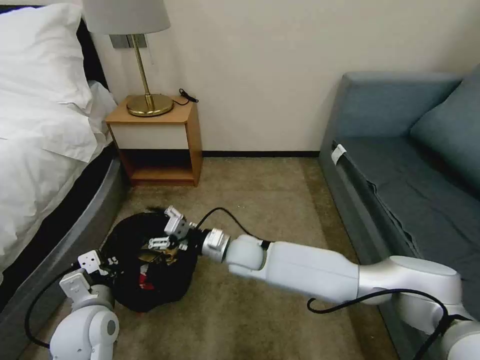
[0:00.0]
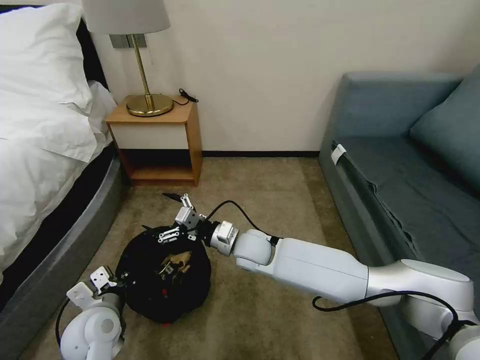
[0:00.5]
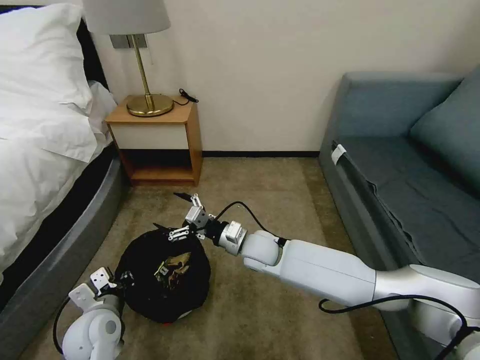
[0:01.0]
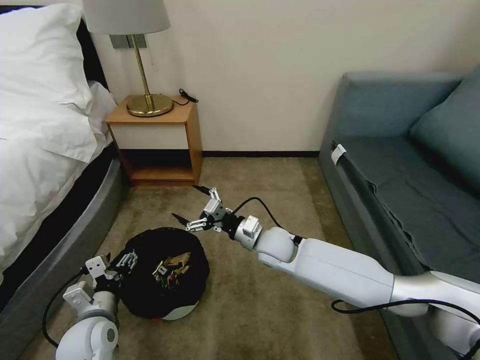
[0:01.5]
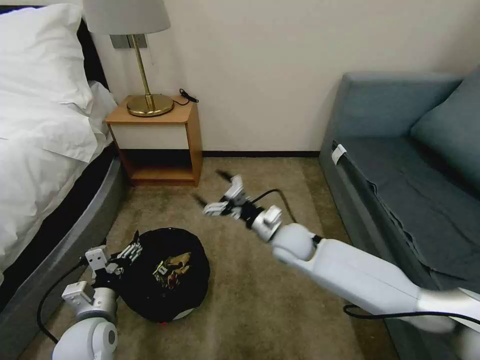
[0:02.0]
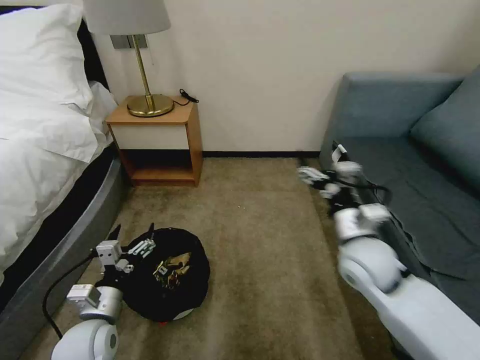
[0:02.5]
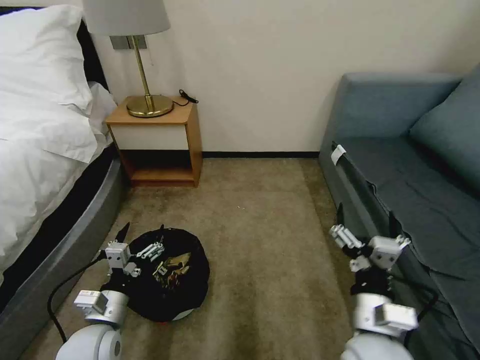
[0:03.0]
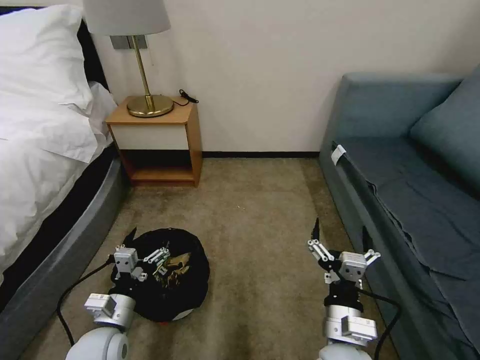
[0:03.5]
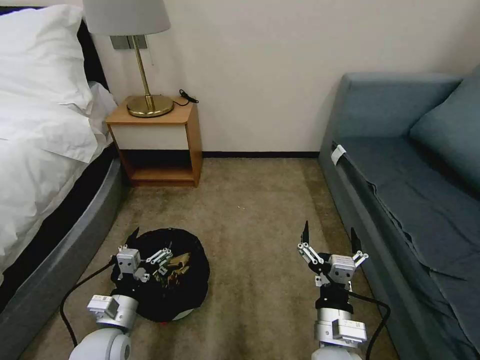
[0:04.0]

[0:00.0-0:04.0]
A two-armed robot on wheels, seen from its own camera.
Task of the whole recording: Pick up the trash bin, then pick up the garbage on the floor and place it into the trash bin.
0.0 to 2.0 s: The left gripper ends up some 5 cm from where it was, and opens its fingers. Meanwhile the right gripper heads to the right, covering roughly 10 cm.
2.0 to 4.0 s: The right gripper moves backward, some 25 cm.

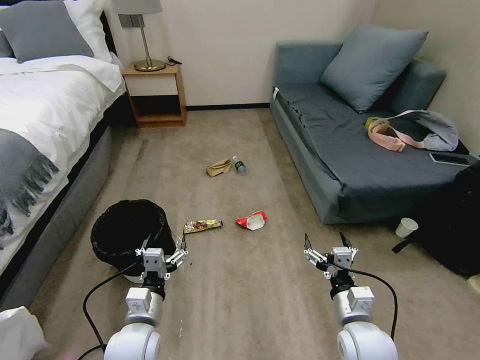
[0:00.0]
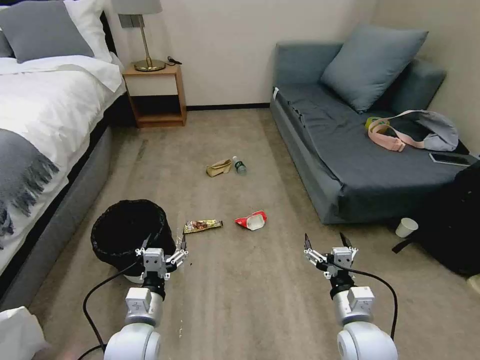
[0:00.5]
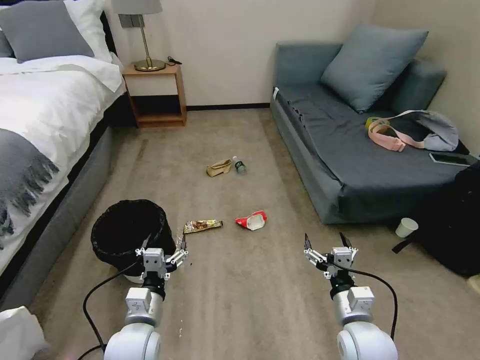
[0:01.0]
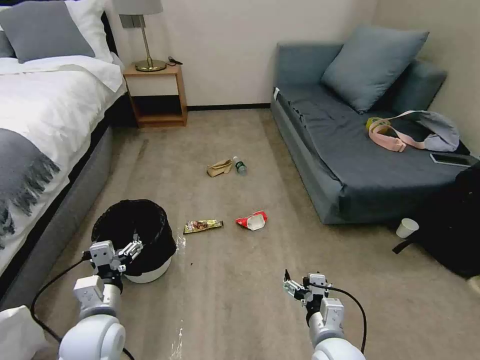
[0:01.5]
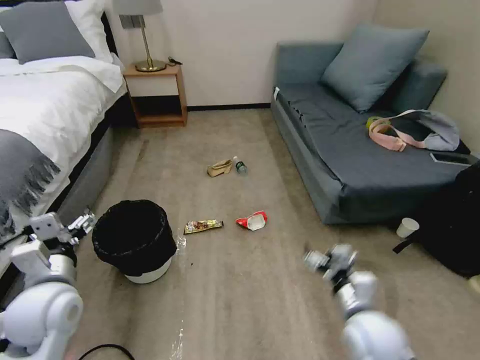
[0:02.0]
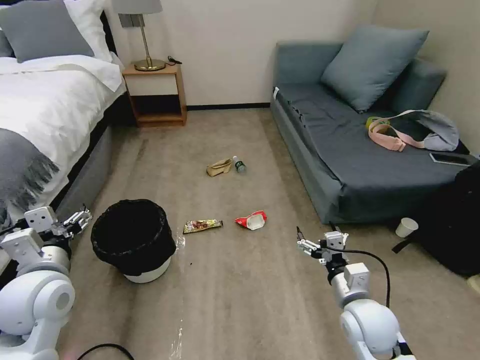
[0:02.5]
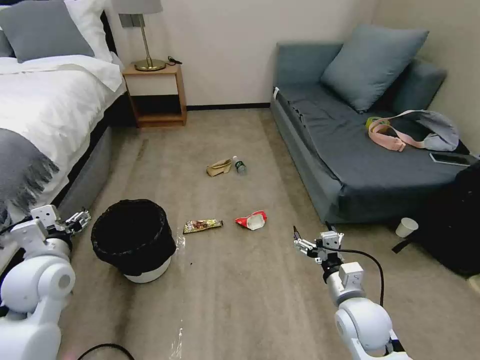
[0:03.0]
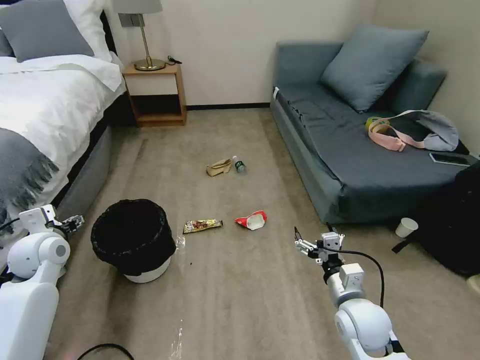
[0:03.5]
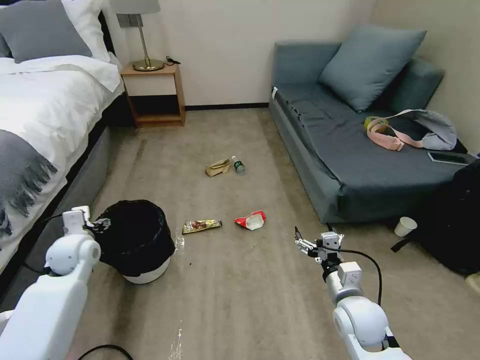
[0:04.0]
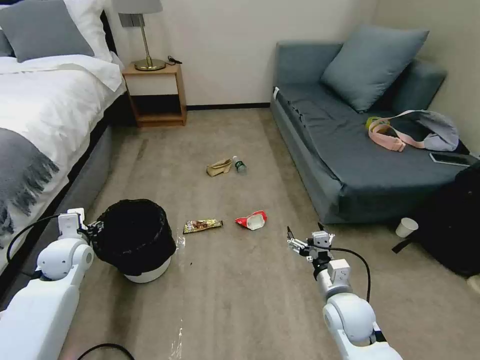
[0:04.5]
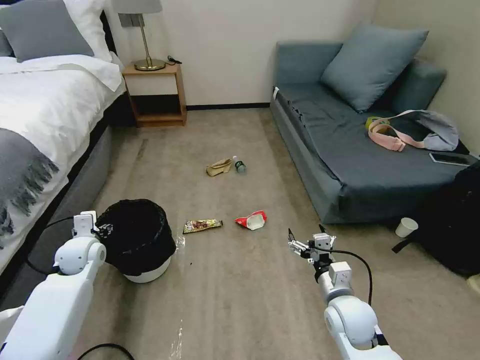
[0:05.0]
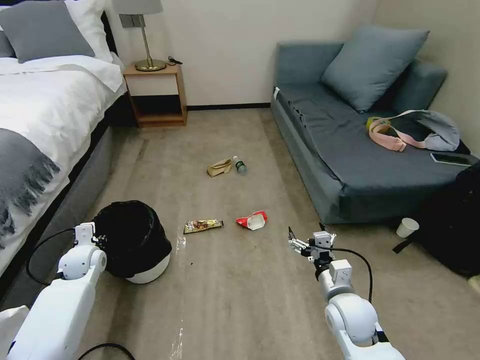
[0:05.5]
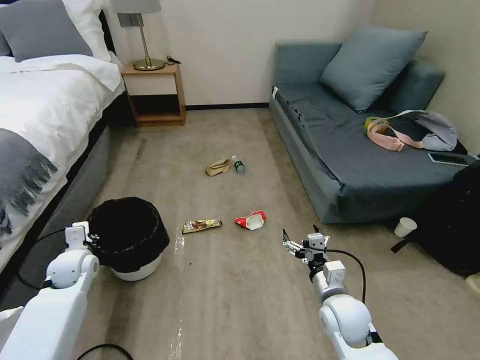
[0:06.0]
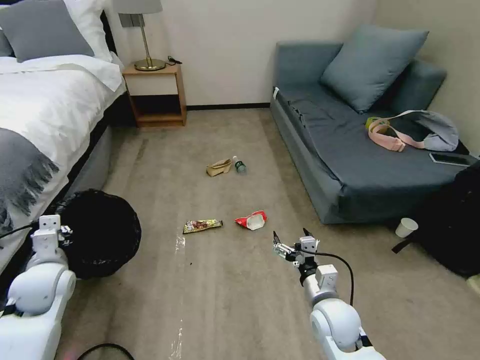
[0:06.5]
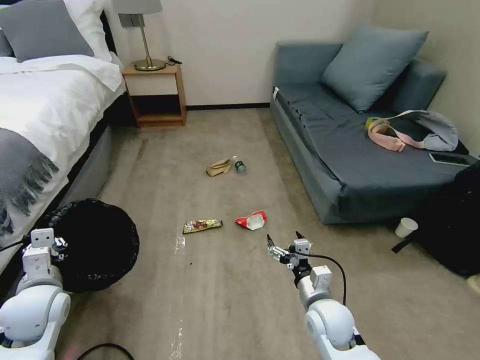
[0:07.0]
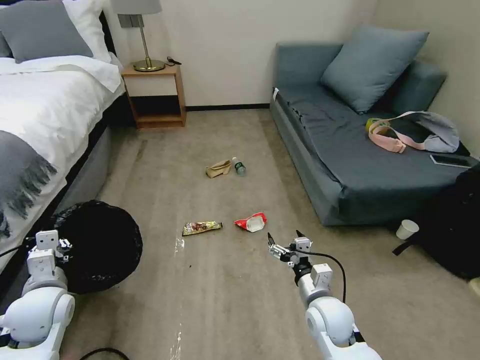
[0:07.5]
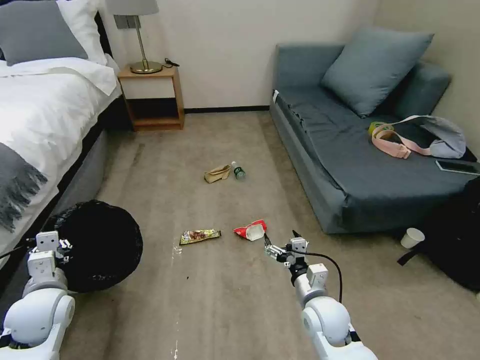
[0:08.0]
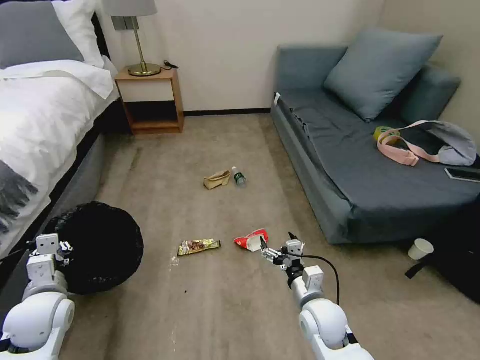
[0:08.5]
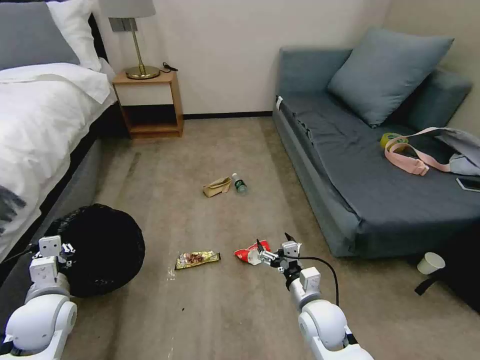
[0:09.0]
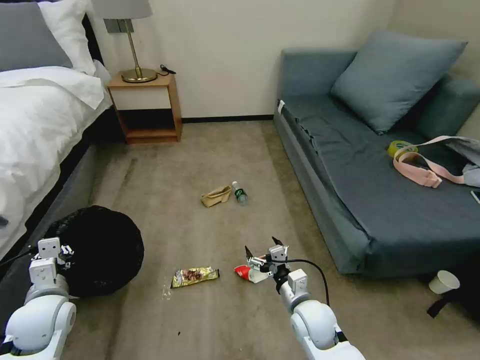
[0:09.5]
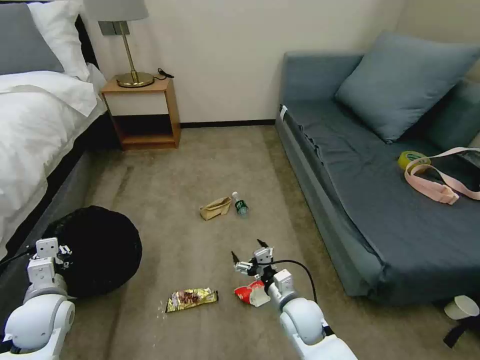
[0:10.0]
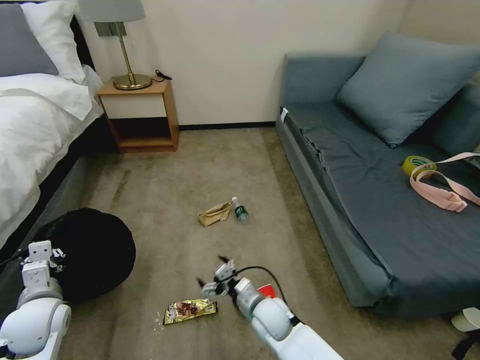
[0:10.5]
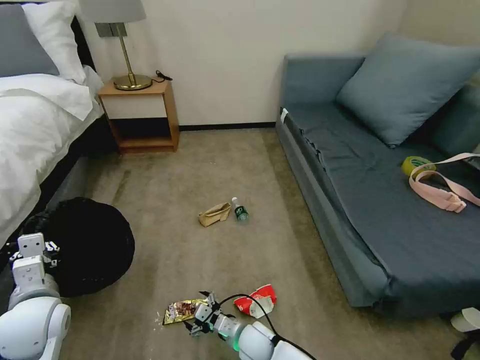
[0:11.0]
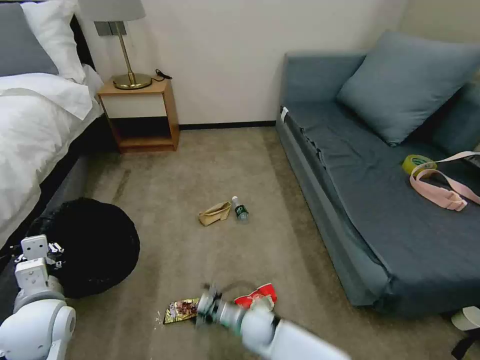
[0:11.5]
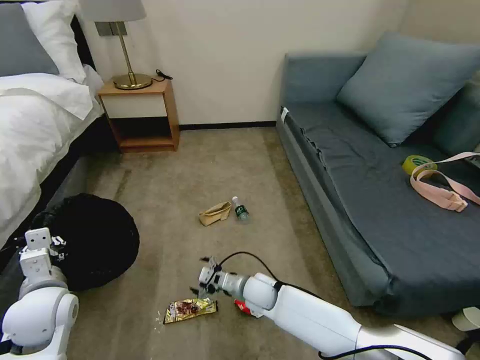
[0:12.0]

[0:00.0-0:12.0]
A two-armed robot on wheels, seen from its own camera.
Task of the whole recording: Pick up the trash bin, then pick up the garbage on the floor and place it into the trash bin.
2.0 to 4.0 s: The left gripper is displaced forward, to the left and downward by roughly 15 cm, while the right gripper heads forward, covering about 5 cm.
4.0 to 6.0 s: The left gripper is displaced downward by approximately 5 cm, and closes.
6.0 to 8.0 s: The left gripper travels backward by roughly 10 cm.
8.0 to 10.0 s: The right gripper ends up about 5 cm from where it was.
10.0 to 12.0 s: The left gripper ends up approximately 5 cm from where it was; the right gripper is displaced to the left and forward by some 10 cm.

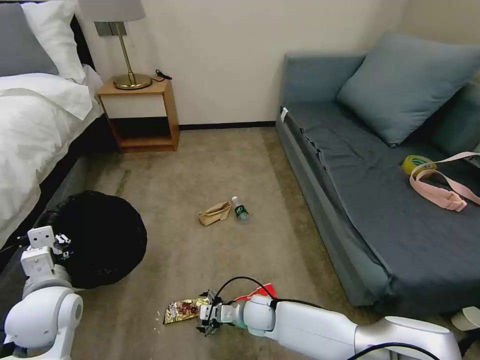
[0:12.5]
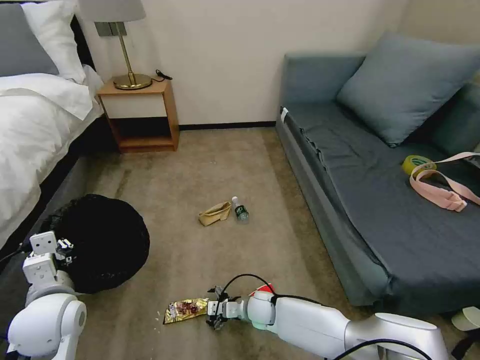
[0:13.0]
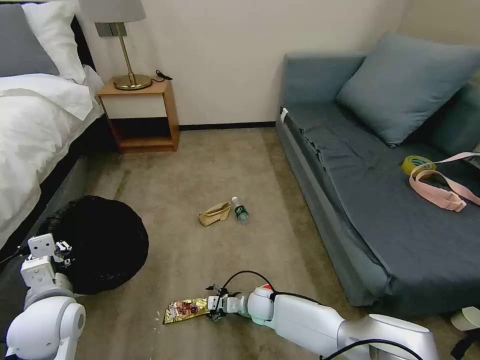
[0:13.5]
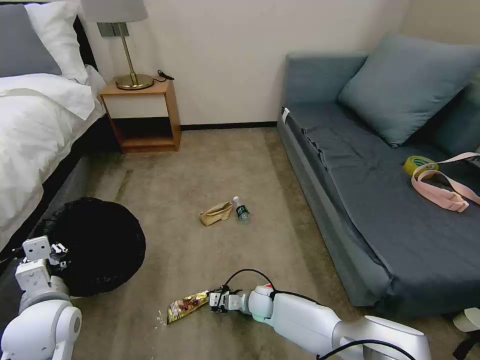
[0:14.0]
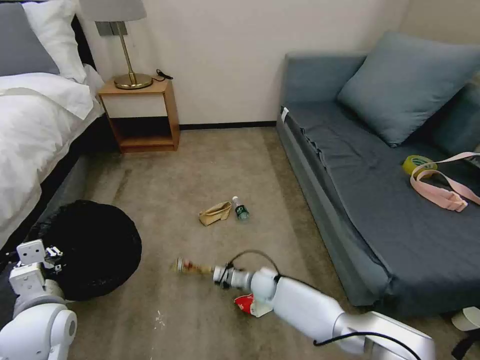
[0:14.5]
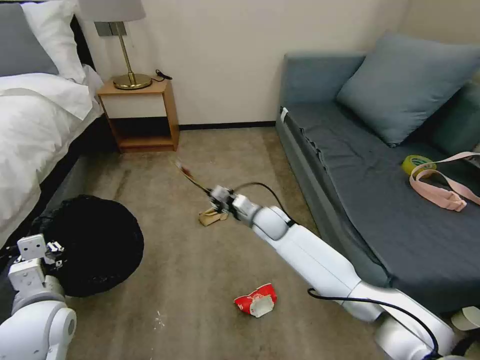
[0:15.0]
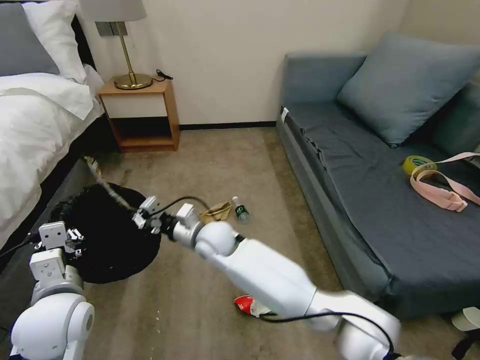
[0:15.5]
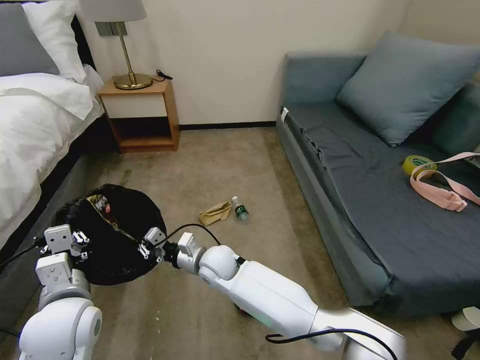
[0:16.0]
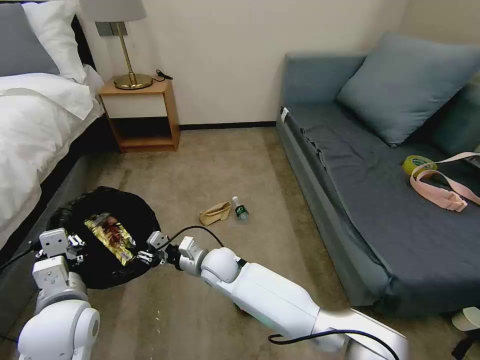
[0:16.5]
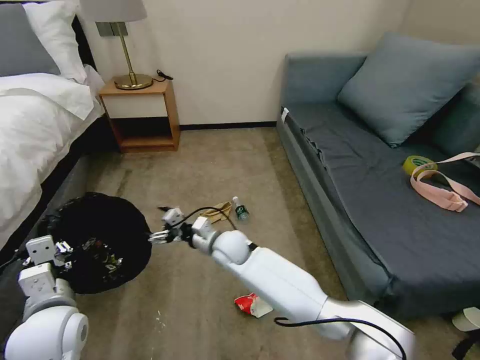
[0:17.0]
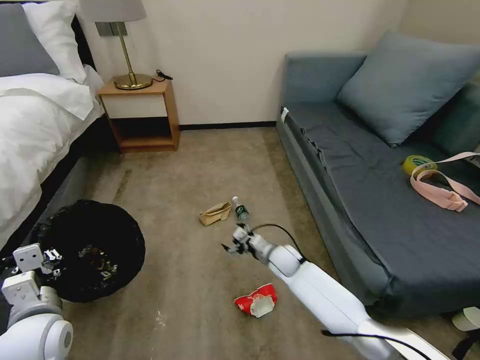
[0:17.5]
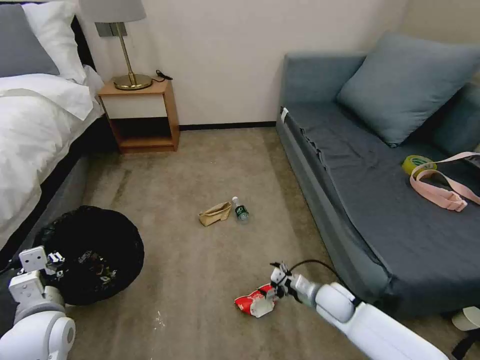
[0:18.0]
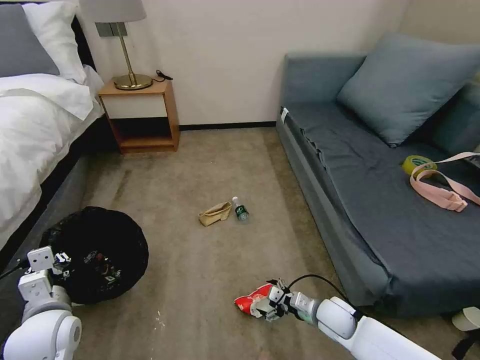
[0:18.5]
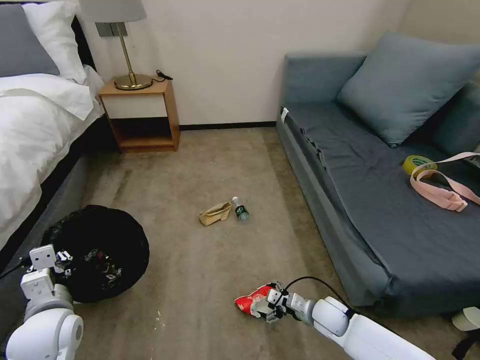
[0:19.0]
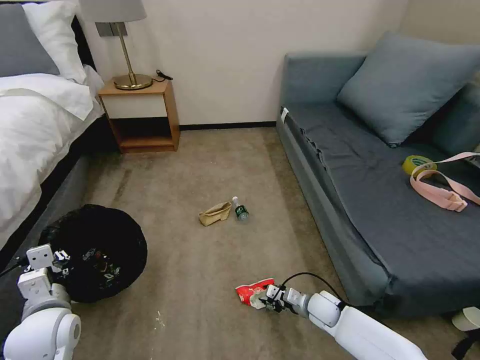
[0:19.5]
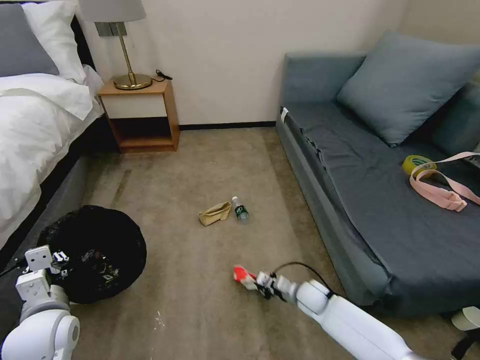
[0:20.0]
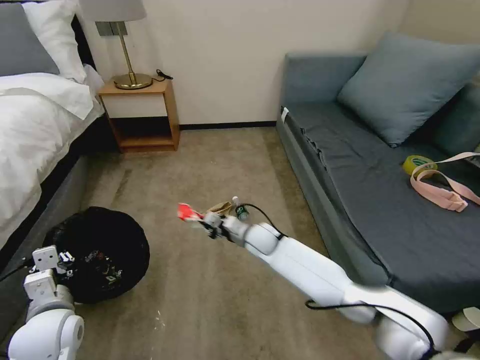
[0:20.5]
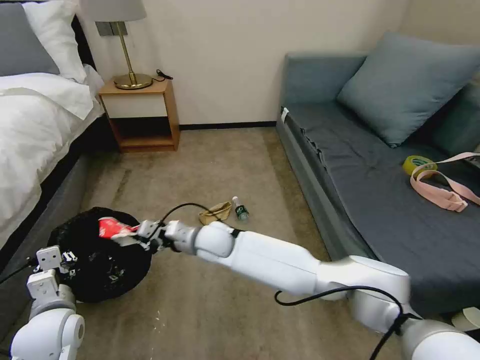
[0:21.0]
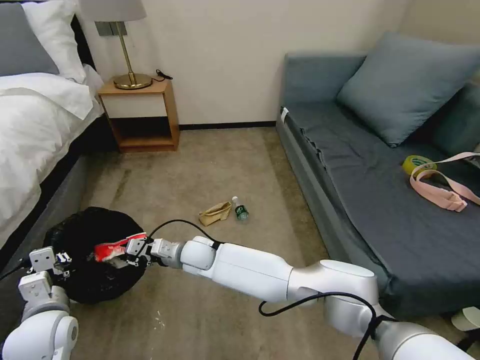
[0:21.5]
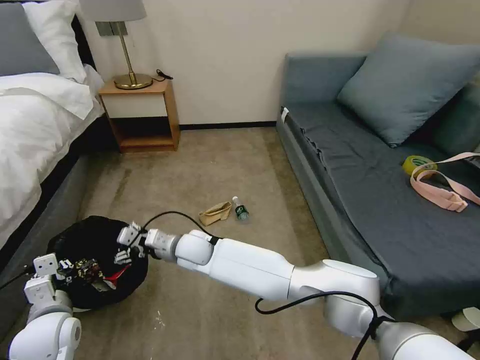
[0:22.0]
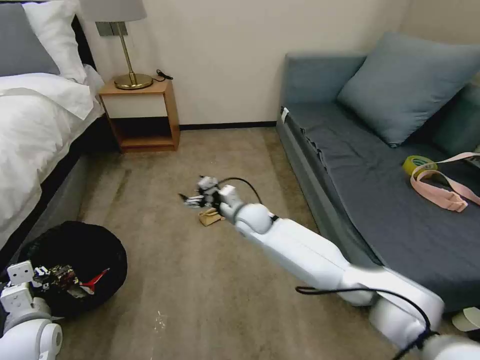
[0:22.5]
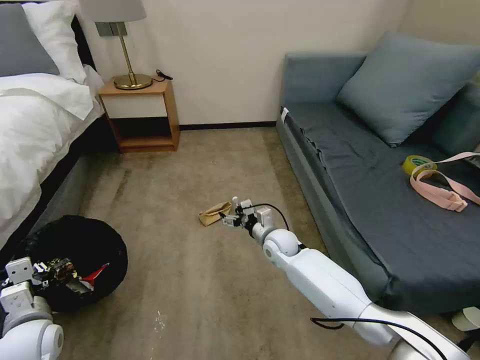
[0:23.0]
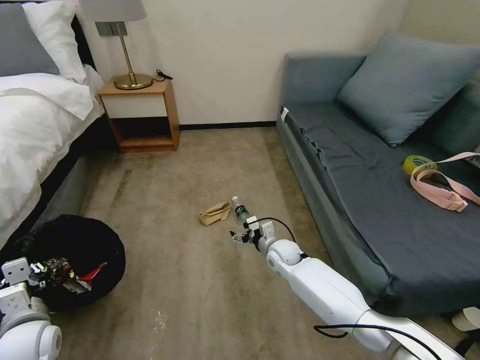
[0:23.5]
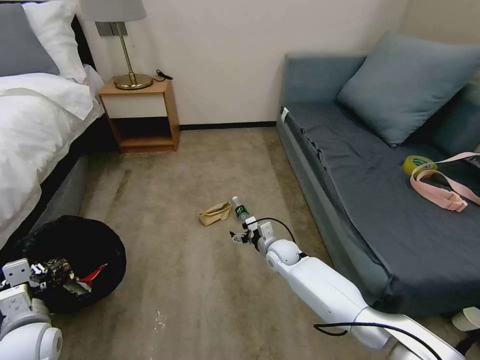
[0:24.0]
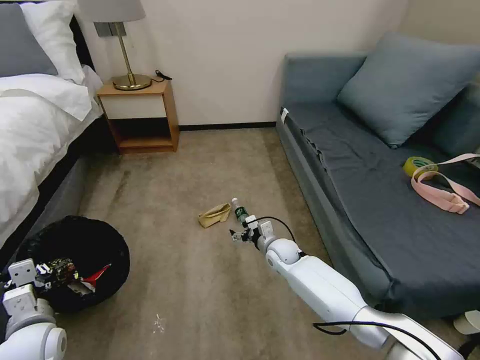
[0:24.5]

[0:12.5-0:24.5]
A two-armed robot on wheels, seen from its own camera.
Task of the whole recording: Pick up the trash bin, then pick up the garbage on the floor and place it into the trash bin.
12.5 to 14.5 s: The right gripper is displaced forward by about 10 cm, and closes its fingers.
14.5 to 16.5 s: The right gripper goes about 20 cm upward and to the left, and opens its fingers. Meanwhile the left gripper heads to the right, covering approximately 5 cm.
16.5 to 18.5 s: The left gripper heads to the left, covering roughly 5 cm, while the right gripper is displaced to the right by some 30 cm, and opens its fingers.
18.5 to 20.5 s: The right gripper is displaced to the left, forward and upward by some 25 cm, and closes its fingers.
20.5 to 22.5 s: The left gripper goes about 5 cm to the left, while the right gripper heads upward, covering approximately 5 cm, reaches roughly 20 cm to the left, then returns, and opens its fingers.
22.5 to 24.5 s: The right gripper shifts roughly 15 cm downward and to the right.
